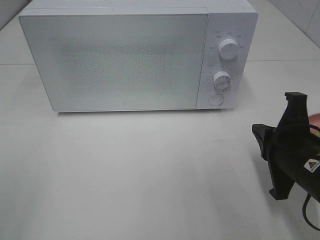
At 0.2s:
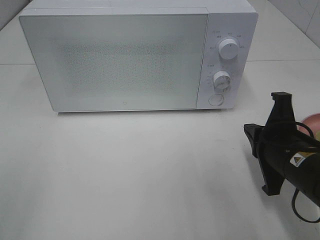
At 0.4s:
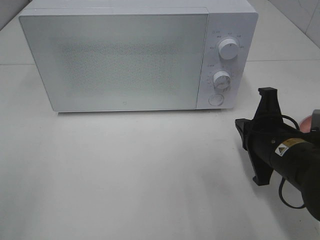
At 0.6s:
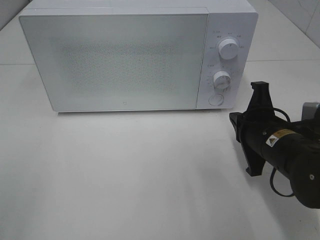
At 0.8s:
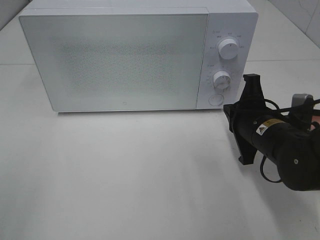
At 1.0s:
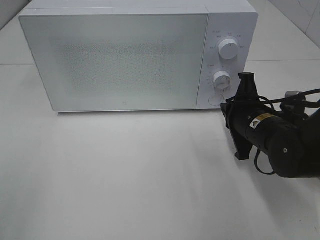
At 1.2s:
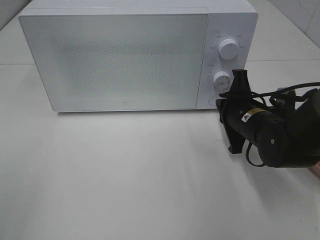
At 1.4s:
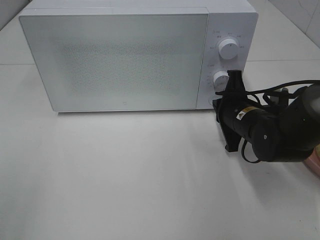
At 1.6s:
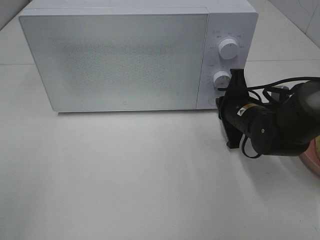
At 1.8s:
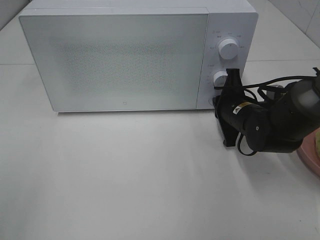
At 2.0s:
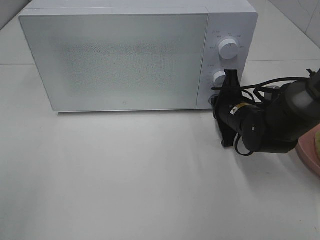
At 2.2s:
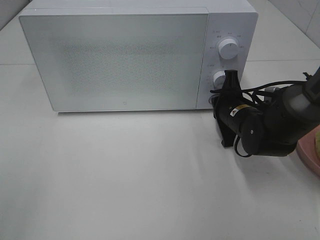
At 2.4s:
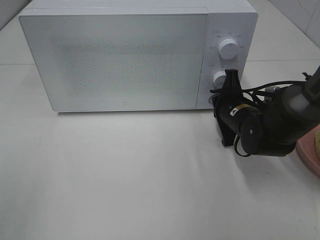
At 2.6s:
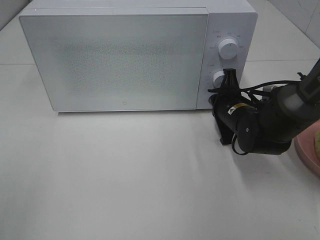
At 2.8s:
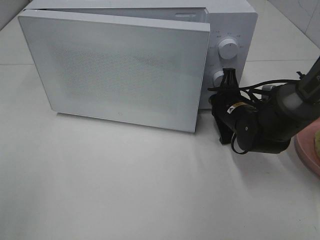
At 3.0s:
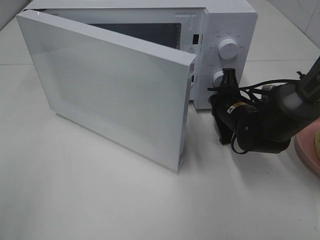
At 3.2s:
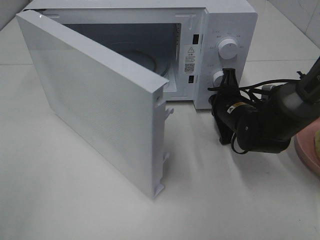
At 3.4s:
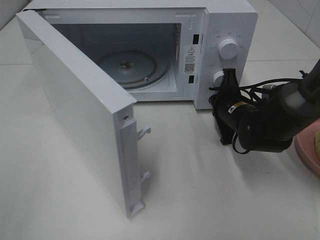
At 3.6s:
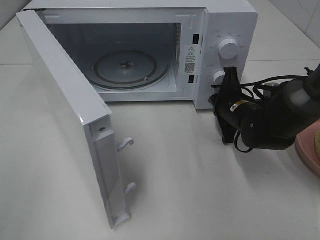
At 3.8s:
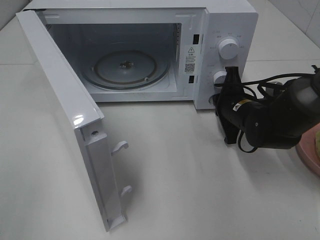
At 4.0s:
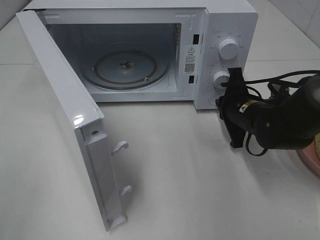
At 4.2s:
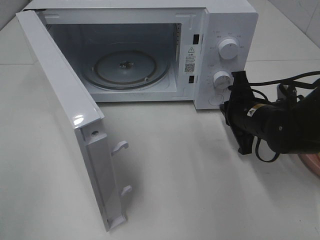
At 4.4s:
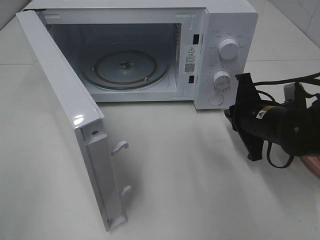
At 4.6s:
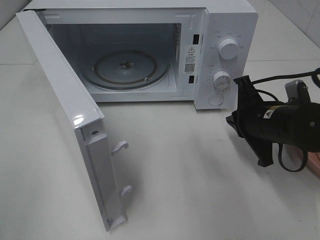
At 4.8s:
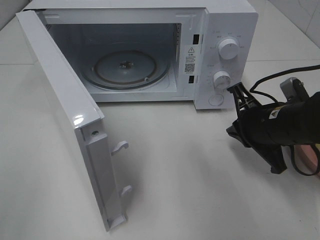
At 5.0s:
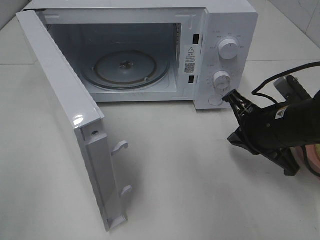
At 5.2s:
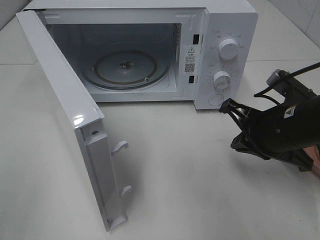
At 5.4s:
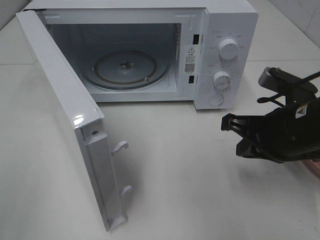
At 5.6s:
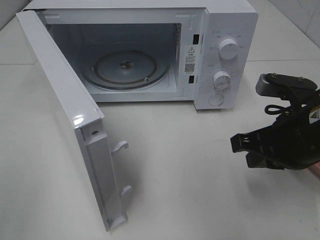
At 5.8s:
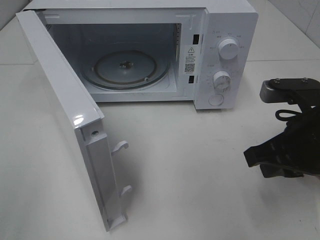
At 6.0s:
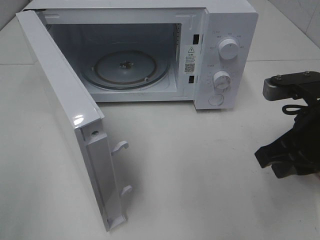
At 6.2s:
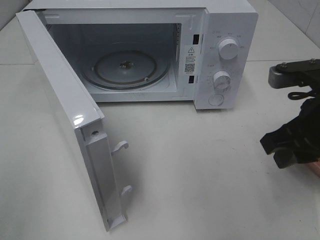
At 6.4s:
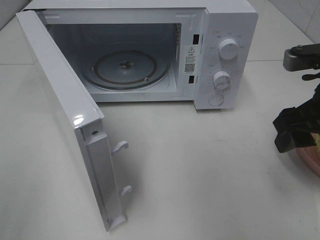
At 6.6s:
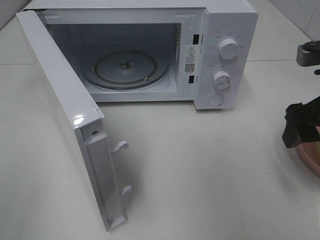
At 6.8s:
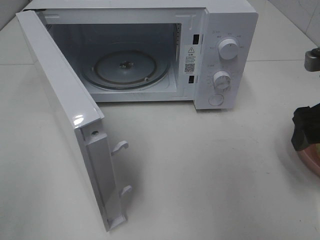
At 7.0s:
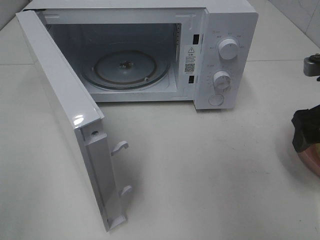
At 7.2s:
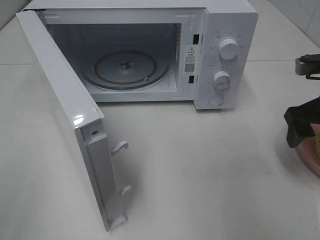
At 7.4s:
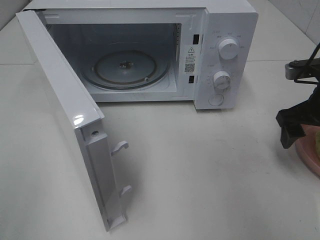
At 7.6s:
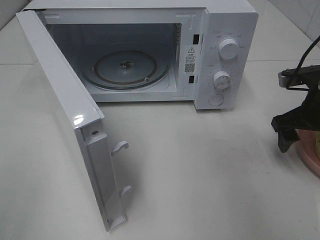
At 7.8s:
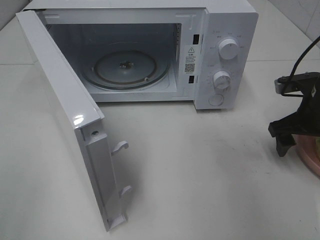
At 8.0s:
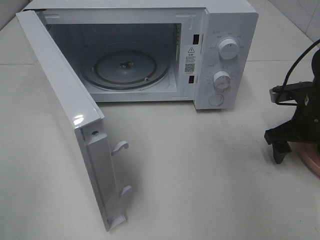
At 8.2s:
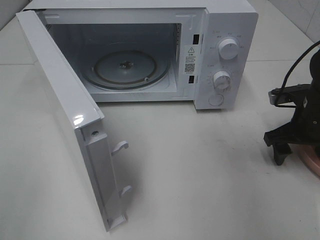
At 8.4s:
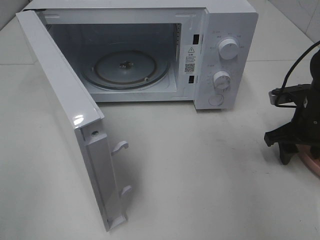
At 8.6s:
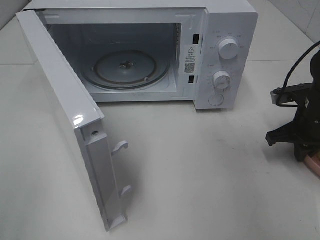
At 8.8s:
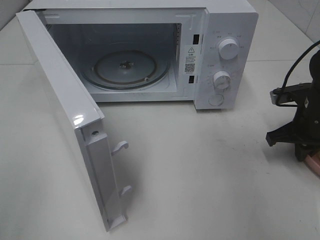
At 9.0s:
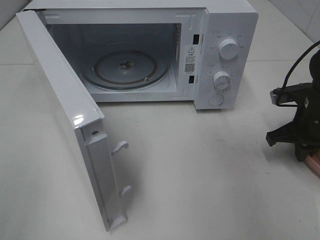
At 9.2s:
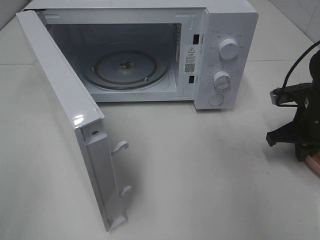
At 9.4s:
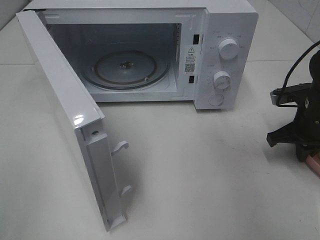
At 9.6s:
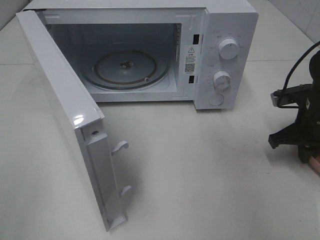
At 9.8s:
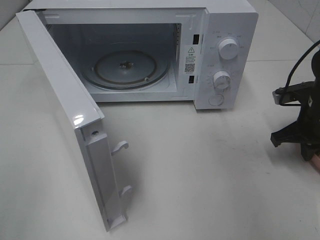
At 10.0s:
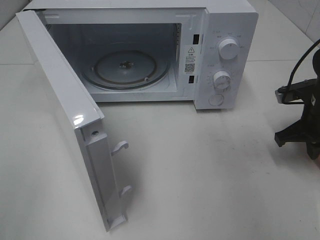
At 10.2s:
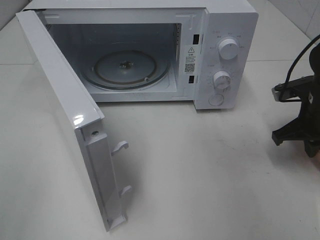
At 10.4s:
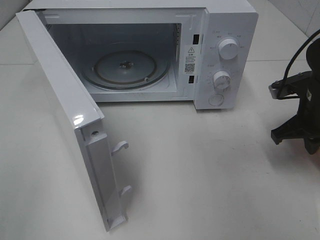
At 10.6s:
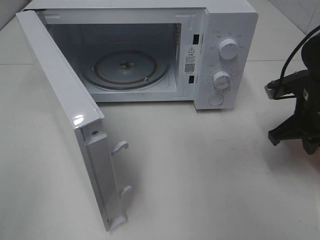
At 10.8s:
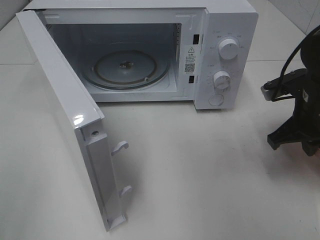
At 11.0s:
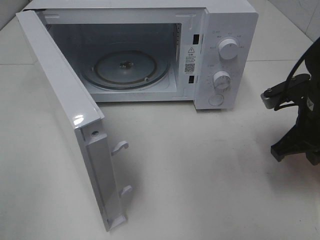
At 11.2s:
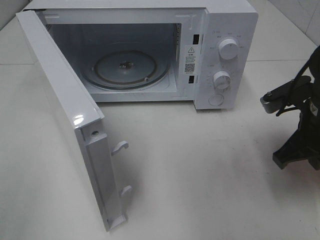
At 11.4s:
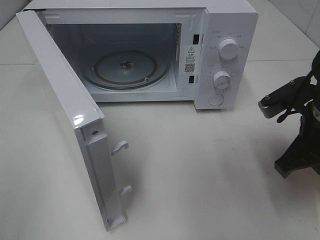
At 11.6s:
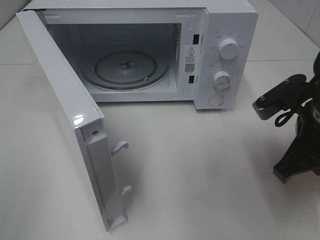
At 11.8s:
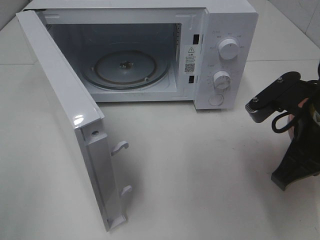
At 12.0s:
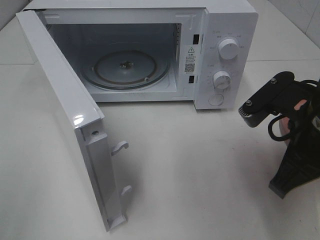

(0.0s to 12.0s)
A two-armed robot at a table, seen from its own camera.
Task of the whole recording: Heat Sandwich.
Step, 0.0s - 4.2s: Right hand: press the switch.
Step, 4.4s - 9.6s: Right hand: grab the plate with the sandwich.
0.0s - 1.6s: The right gripper goes roughly 15 cm forward.
1.6s - 3.0s: There are only small adjustments of the grippers.
3.0s - 4.4s: The right gripper shifts about 5 cm backward.
4.4s - 6.0s: The right gripper heads upward and backward, covering some 15 cm.
6.0s - 7.6s: The right gripper travels forward, to the right and downward by some 15 cm, and opens.
7.6s - 9.0s: The right gripper closes up.
9.0s - 10.4s: The grippers make only small movements.
10.4s - 12.0s: The right gripper moves backward, to the left and upward, roughly 15 cm.

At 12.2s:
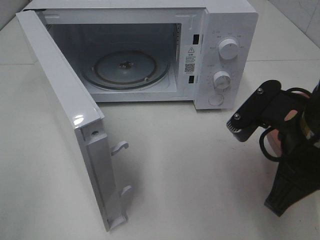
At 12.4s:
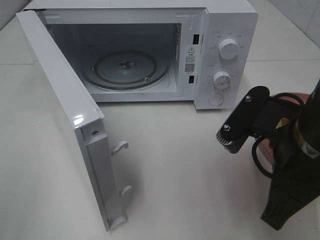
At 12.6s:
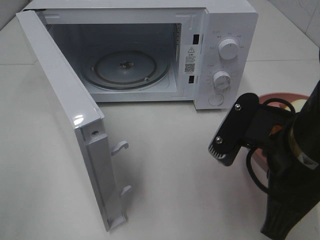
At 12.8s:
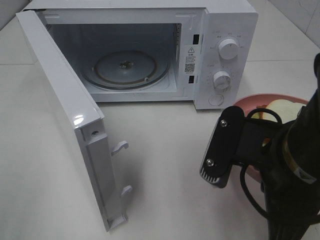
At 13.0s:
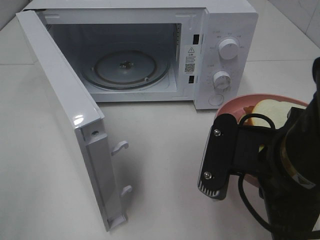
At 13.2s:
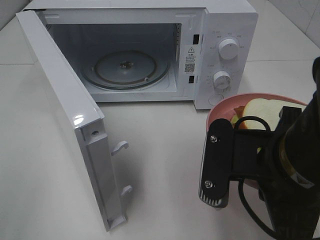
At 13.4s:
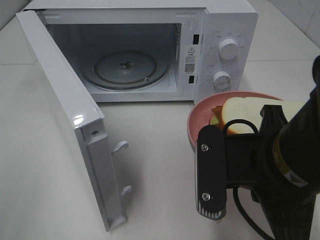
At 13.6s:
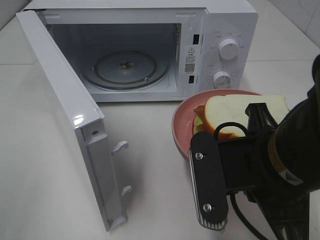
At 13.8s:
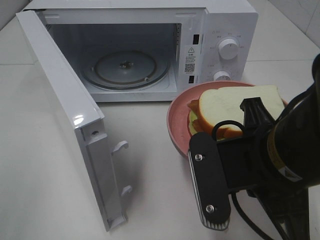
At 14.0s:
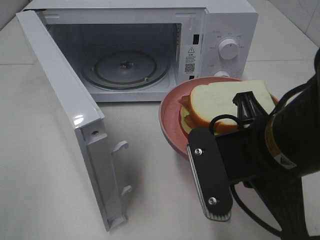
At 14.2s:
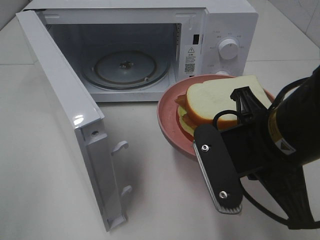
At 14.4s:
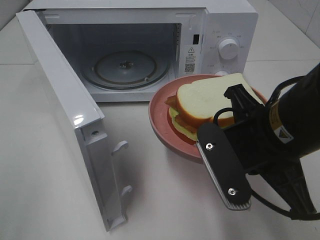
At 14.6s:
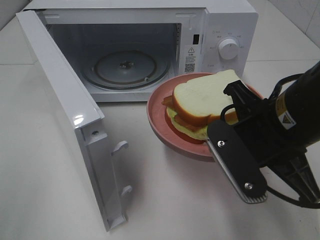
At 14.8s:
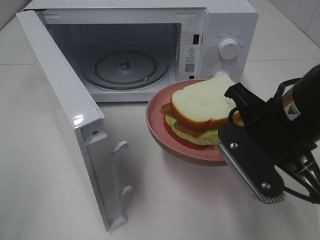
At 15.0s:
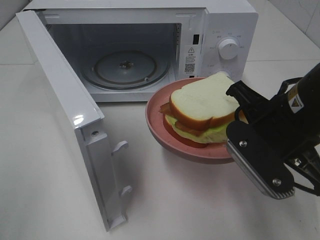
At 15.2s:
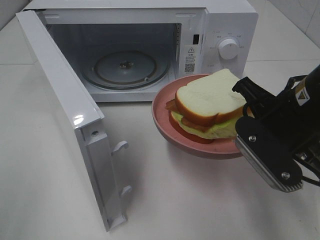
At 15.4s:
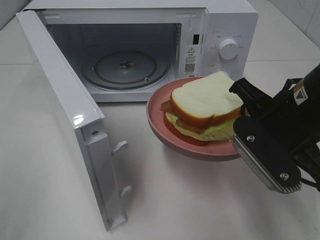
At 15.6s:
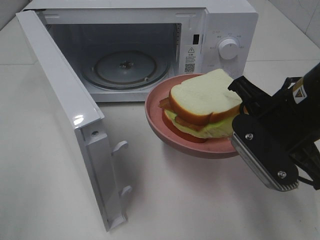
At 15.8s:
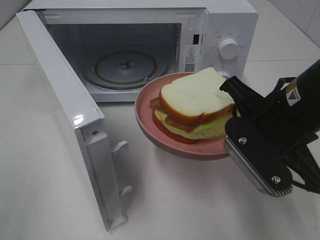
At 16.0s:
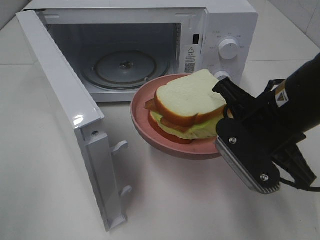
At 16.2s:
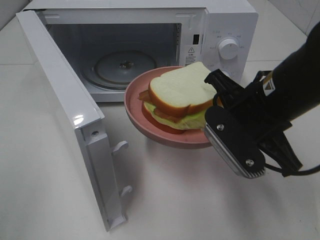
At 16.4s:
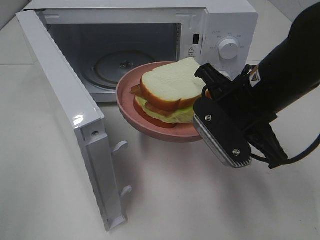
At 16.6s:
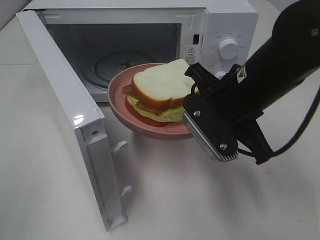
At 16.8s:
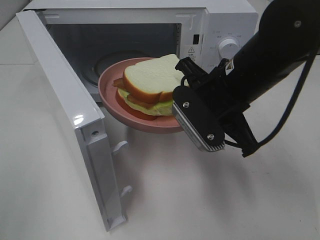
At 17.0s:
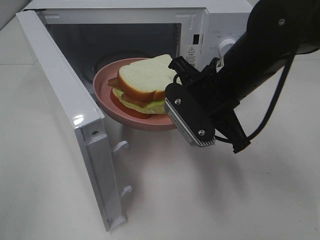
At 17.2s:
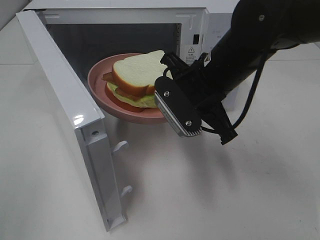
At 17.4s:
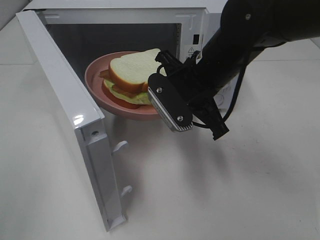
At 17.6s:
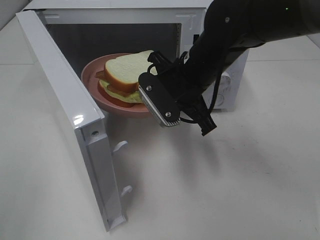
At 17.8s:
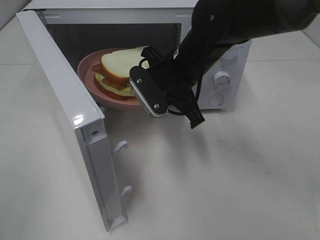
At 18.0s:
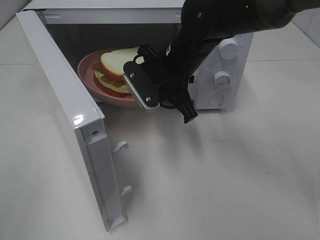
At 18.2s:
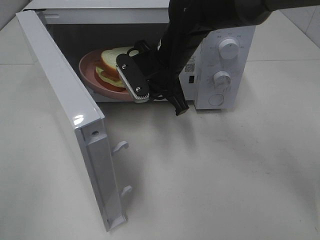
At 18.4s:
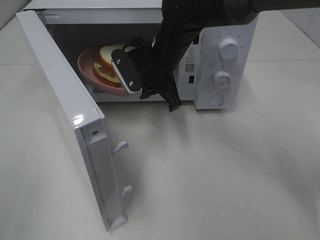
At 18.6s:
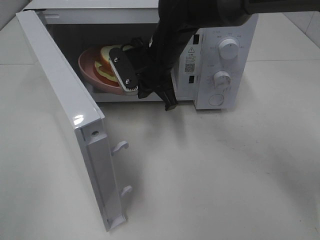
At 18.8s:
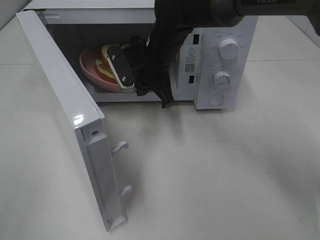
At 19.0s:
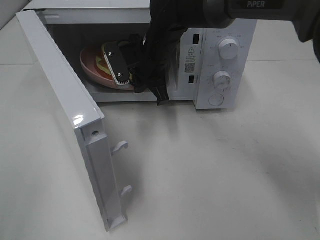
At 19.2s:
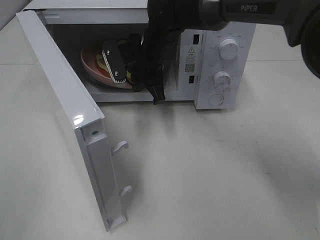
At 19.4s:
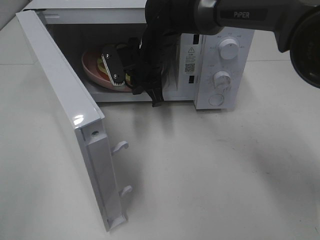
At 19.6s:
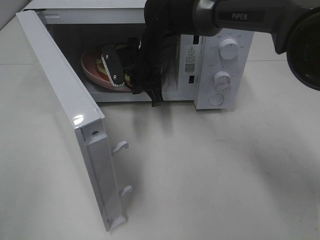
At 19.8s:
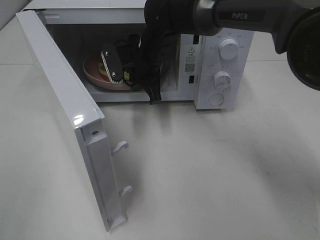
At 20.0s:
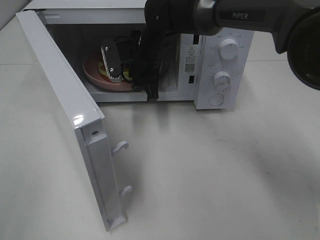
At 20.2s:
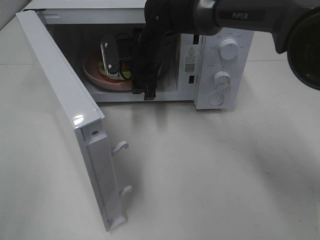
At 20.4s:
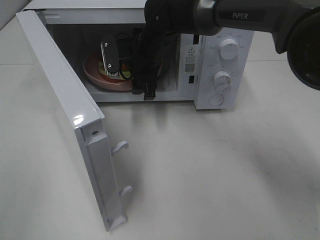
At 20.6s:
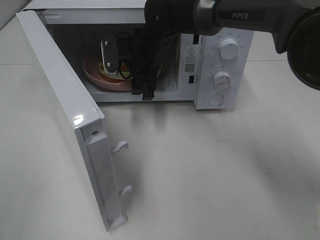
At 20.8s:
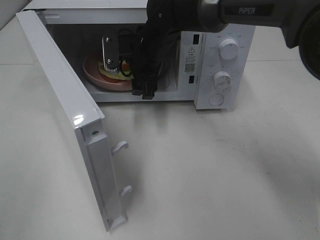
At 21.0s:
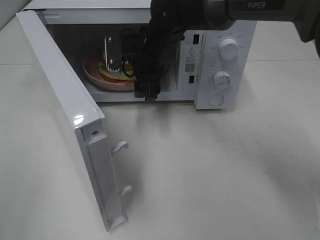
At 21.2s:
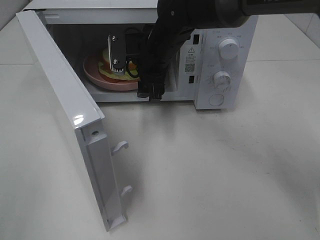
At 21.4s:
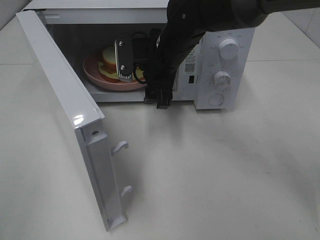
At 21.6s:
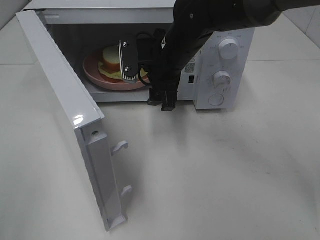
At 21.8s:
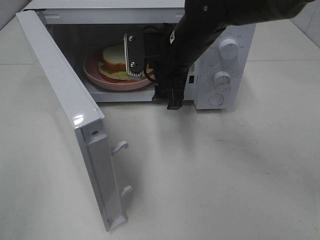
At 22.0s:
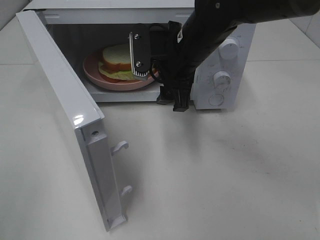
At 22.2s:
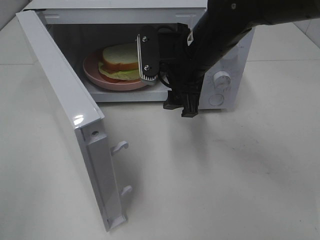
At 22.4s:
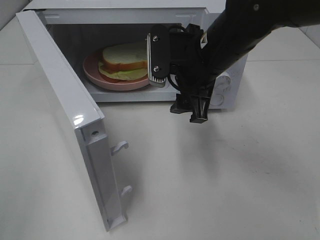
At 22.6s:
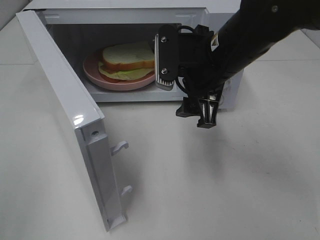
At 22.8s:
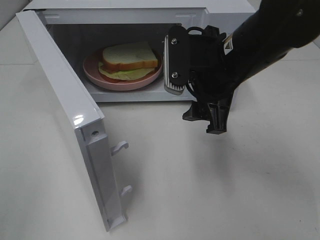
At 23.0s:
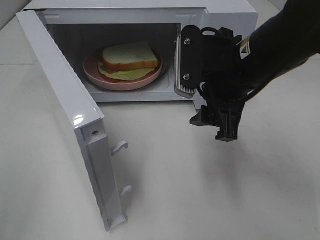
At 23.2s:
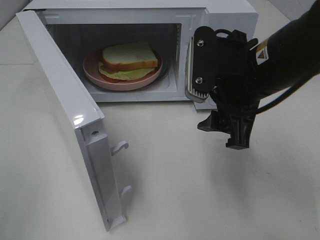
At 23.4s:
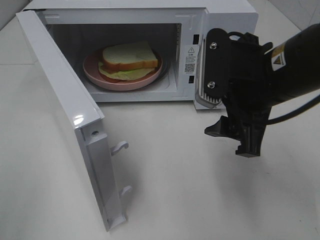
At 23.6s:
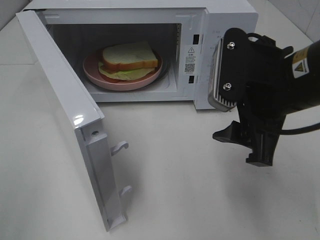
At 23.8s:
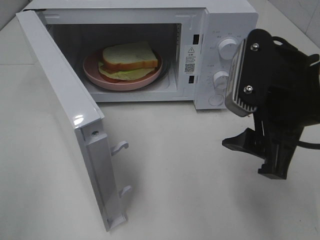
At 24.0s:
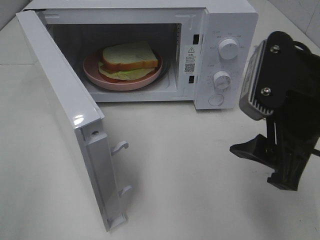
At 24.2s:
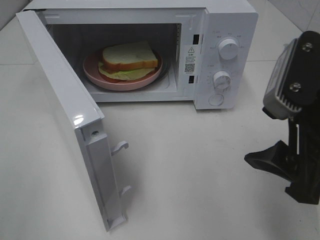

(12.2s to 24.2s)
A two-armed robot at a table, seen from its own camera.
Task of the whole recording: Heat Sandwich.
Step, 12.2s - 20.8s: Right hand: place the plate in the microwave.
12.2s - 13.8s: The right gripper shifts by approximately 5 cm.
13.8s - 15.2s: The right gripper is displaced forward and to the right by approximately 10 cm.
15.2s - 16.6s: The right gripper travels to the left by about 5 cm.
16.6s - 18.2s: The right gripper goes roughly 15 cm forward and to the left.
18.2s - 19.8s: The right gripper shifts approximately 5 cm forward.
19.8s - 21.2s: The right gripper opens its fingers.
21.2s - 22.6s: The right gripper is displaced backward and to the right by roughly 15 cm.
22.6s - 24.2s: The right gripper is displaced backward and to the right by some 15 cm.
